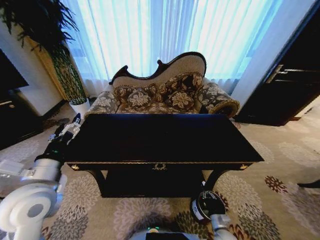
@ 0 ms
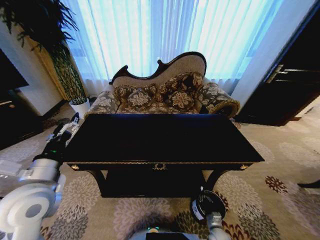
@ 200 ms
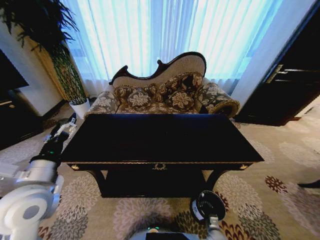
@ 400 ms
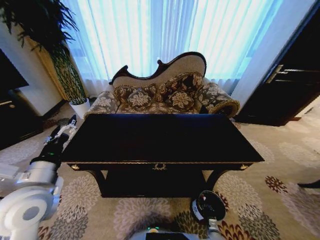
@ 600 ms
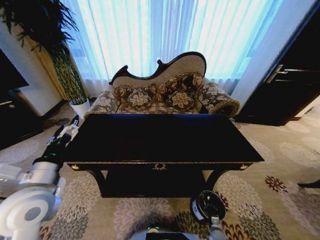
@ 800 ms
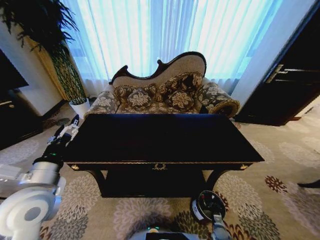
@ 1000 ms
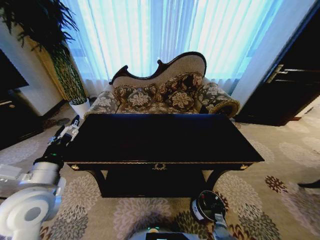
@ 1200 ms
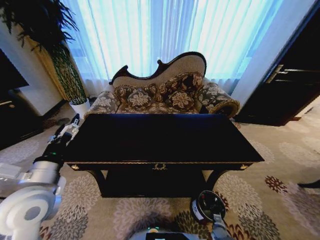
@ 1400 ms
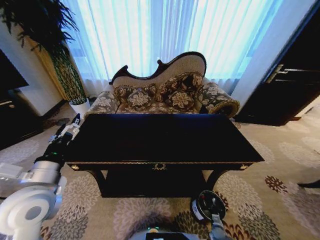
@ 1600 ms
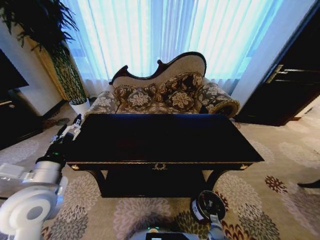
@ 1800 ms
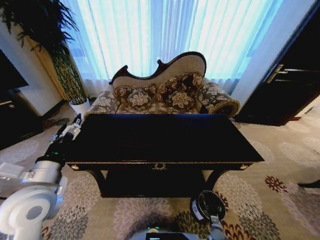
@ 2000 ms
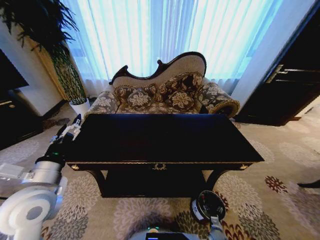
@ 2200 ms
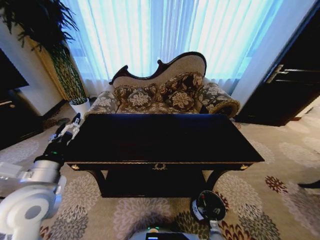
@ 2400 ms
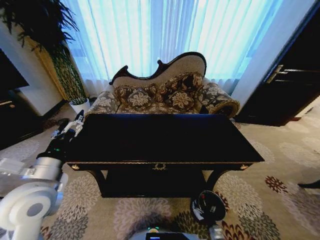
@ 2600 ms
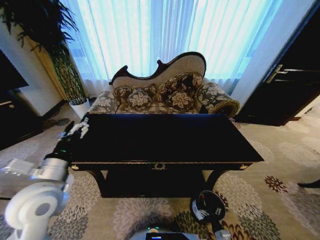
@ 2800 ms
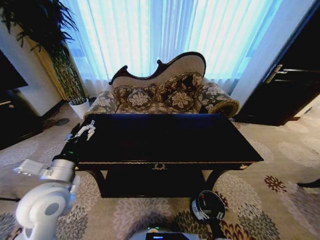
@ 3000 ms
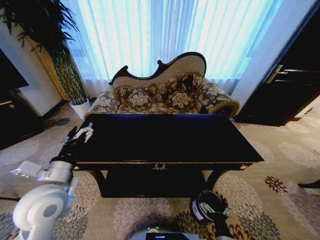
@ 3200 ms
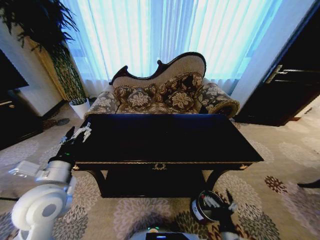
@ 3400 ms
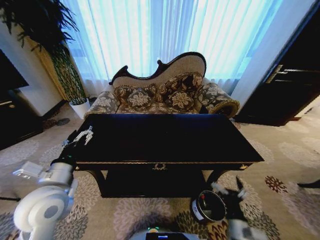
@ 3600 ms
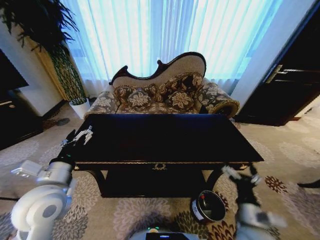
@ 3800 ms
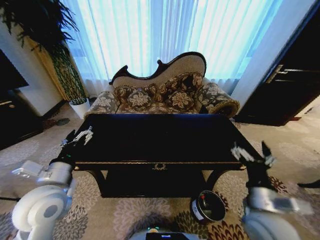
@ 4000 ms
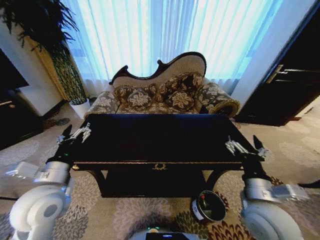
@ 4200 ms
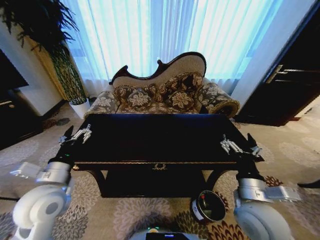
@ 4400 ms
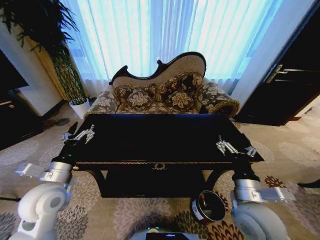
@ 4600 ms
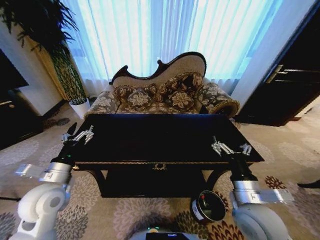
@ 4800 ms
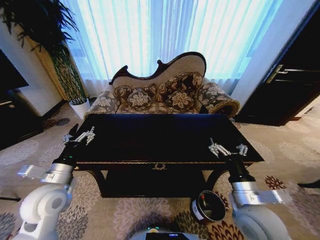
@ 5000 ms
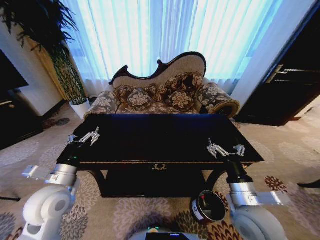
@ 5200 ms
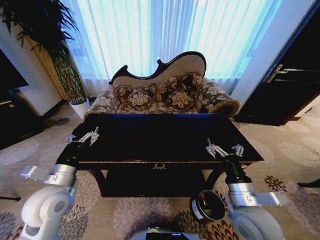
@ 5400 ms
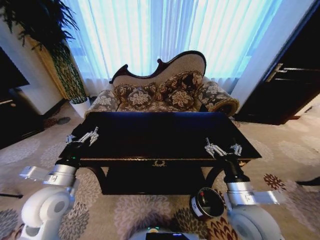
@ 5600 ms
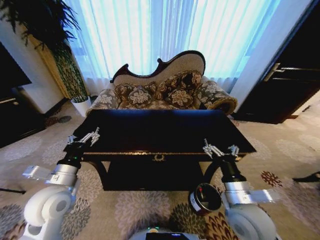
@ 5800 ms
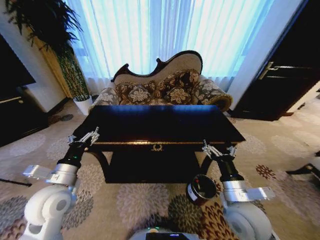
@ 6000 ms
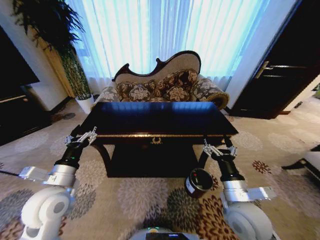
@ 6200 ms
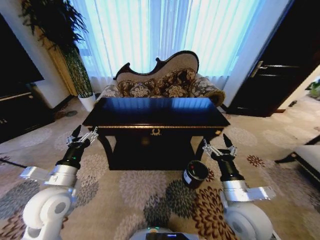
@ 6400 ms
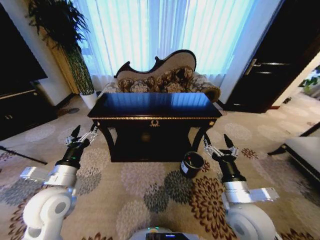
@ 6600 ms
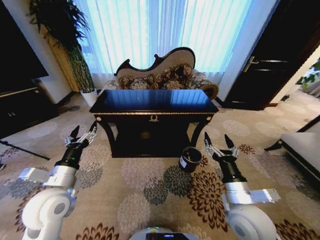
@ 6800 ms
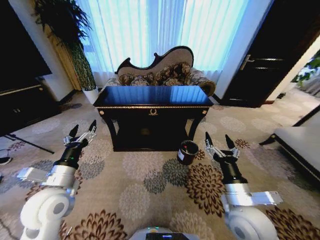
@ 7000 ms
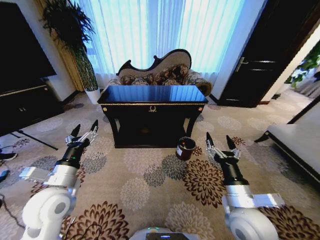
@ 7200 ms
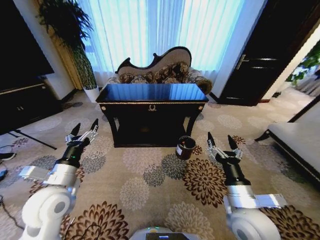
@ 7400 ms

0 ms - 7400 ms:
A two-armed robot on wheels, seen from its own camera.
Task of the whole recording: Move to the front of the table and place the trash on the table into the trash bin.
1400 ms - 3000 ms: The right gripper shifts about 20 cm upward, backward and to the left, and opens its fingers.
3000 ms - 4400 ms: The right gripper moves upward, about 35 cm.
